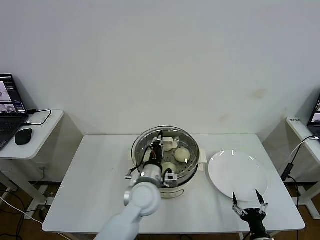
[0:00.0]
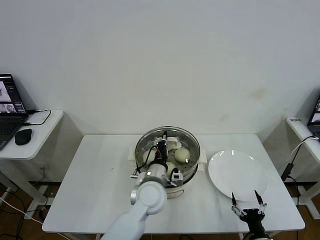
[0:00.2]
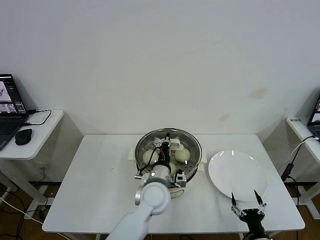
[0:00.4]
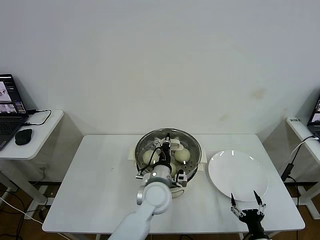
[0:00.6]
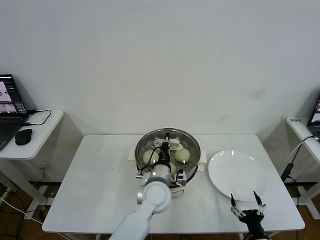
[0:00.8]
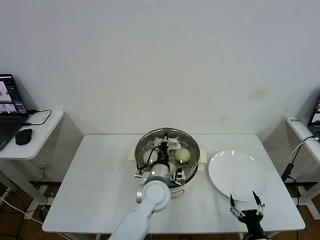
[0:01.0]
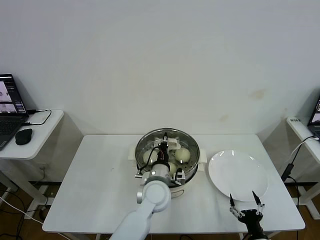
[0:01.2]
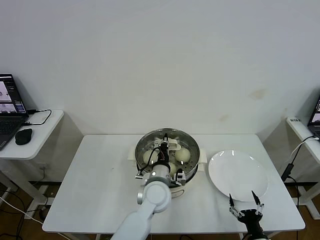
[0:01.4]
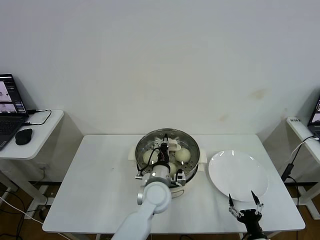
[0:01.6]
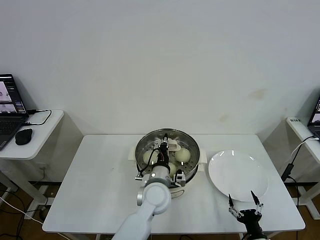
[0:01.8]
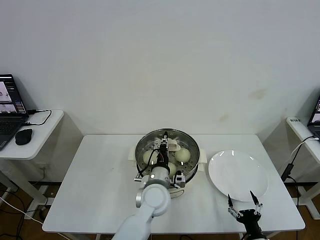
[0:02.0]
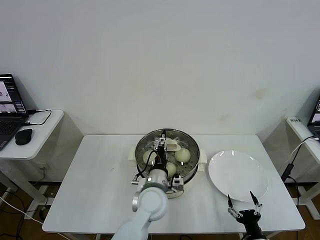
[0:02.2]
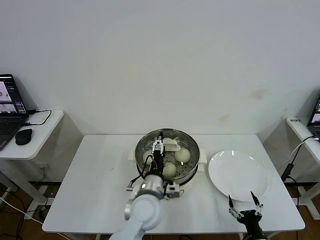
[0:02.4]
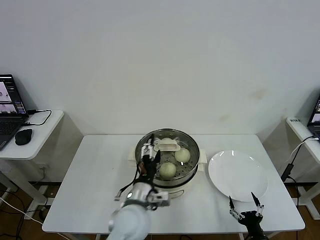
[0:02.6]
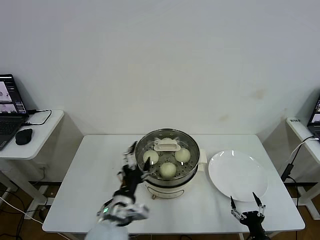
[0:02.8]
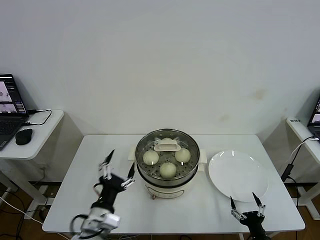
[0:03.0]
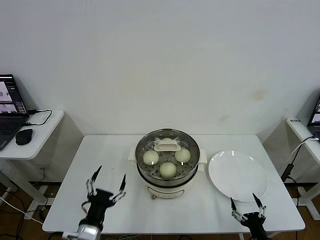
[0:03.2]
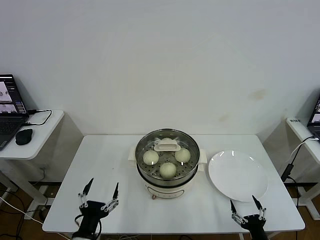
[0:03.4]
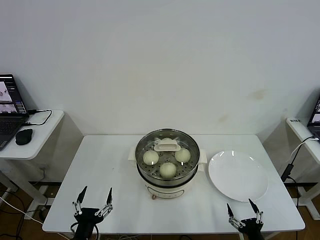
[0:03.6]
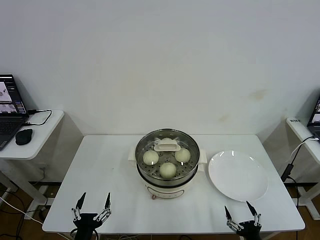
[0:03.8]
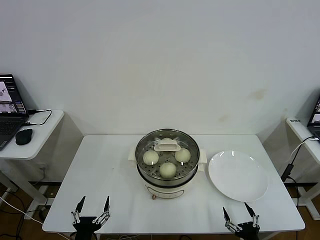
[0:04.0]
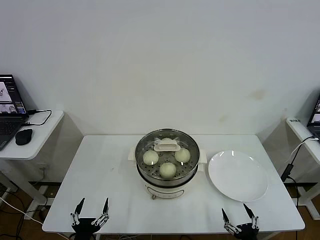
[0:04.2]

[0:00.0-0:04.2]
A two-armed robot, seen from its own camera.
Step, 0:00.0 to 0:02.2: Place the pot lid on the steamer with left gripper.
0:00.0 to 0:01.4: The left gripper changes place by approximately 5 cm.
0:01.4 to 0:02.8: The left gripper is displaced backward and to the left by some 15 cm, and opens up.
0:02.8 to 0:04.2: The left gripper heads to the left, backward and downward, covering approximately 20 cm. The right gripper shifts by about 5 cm.

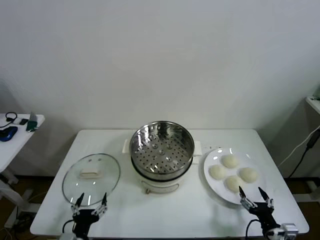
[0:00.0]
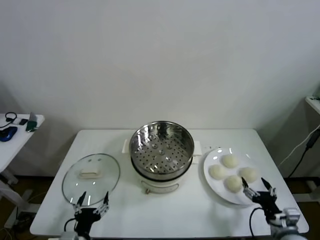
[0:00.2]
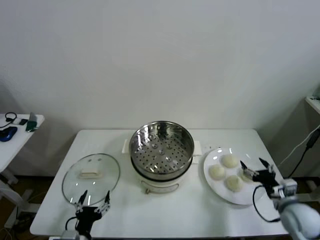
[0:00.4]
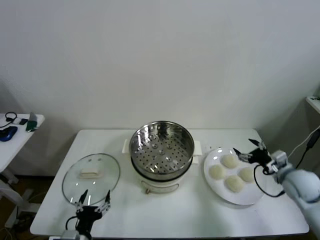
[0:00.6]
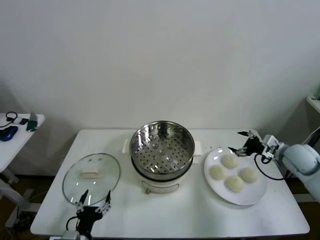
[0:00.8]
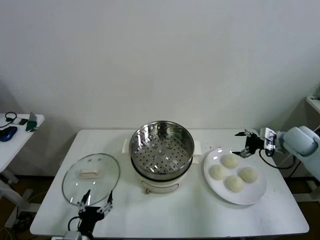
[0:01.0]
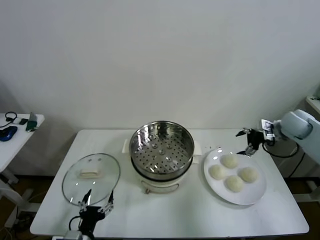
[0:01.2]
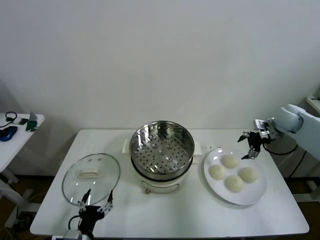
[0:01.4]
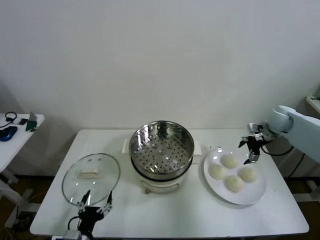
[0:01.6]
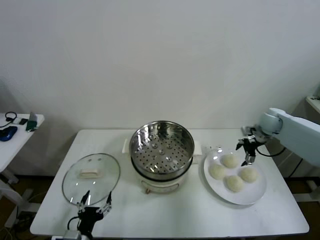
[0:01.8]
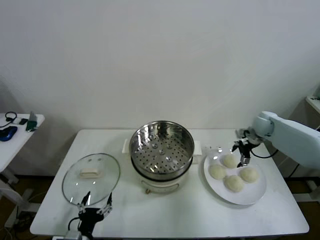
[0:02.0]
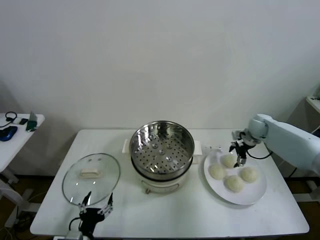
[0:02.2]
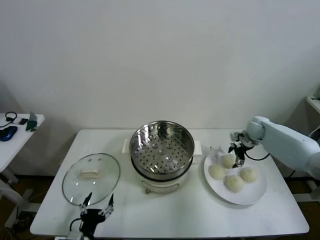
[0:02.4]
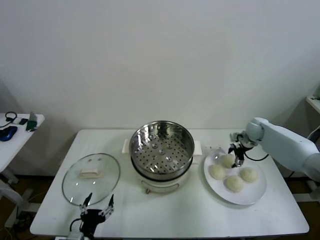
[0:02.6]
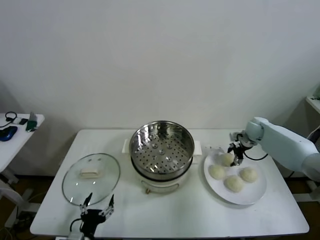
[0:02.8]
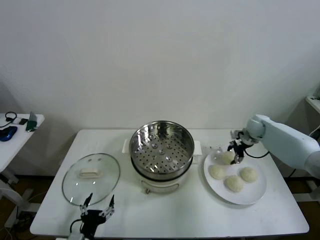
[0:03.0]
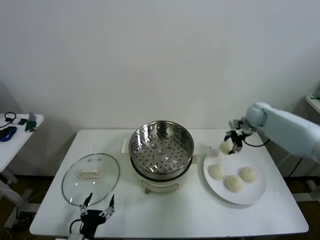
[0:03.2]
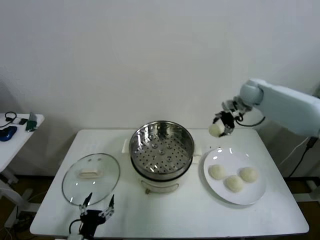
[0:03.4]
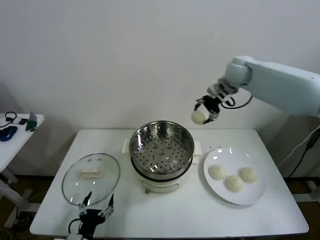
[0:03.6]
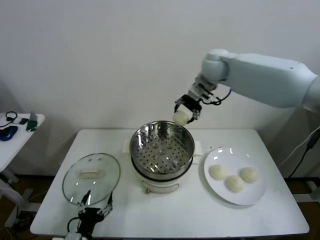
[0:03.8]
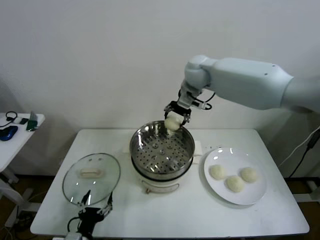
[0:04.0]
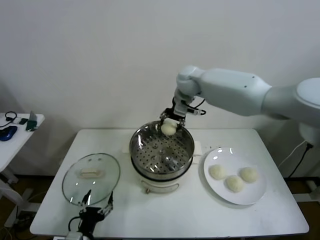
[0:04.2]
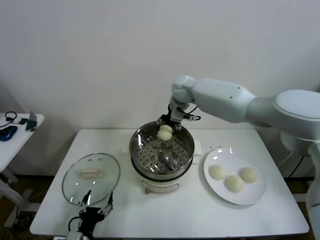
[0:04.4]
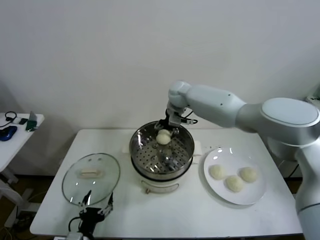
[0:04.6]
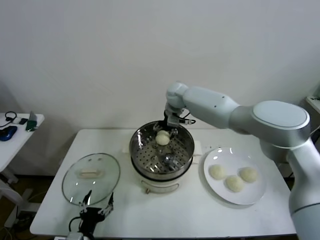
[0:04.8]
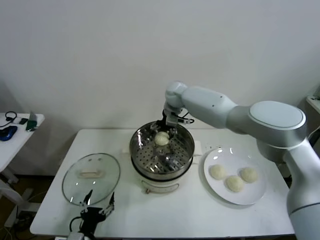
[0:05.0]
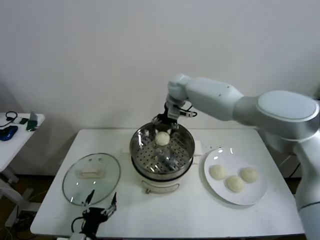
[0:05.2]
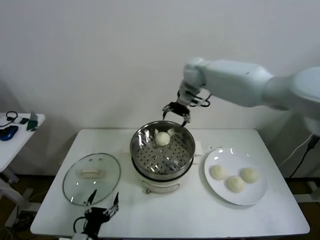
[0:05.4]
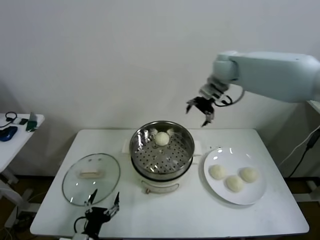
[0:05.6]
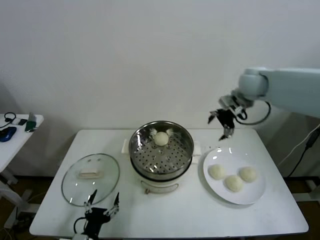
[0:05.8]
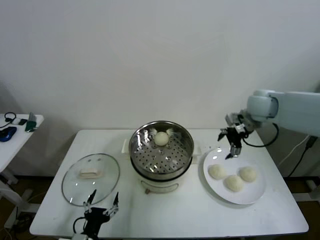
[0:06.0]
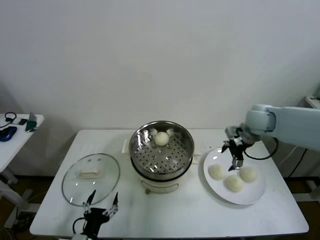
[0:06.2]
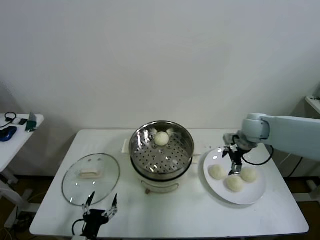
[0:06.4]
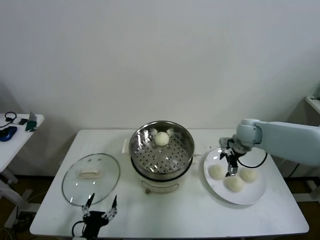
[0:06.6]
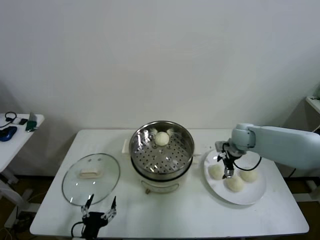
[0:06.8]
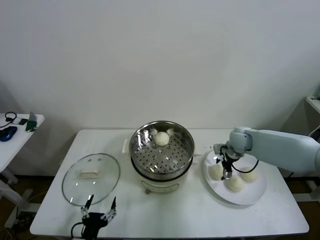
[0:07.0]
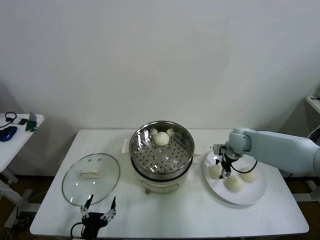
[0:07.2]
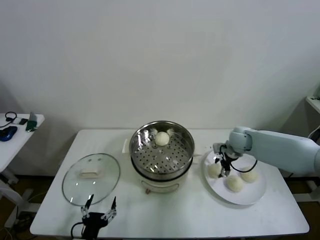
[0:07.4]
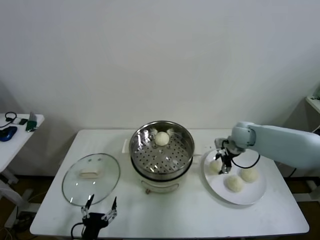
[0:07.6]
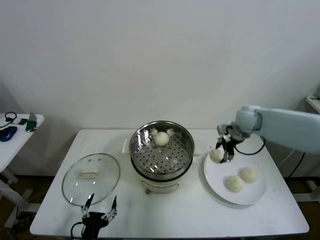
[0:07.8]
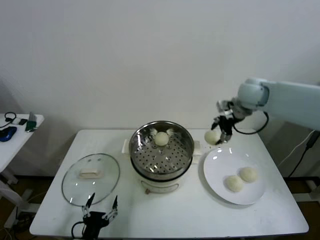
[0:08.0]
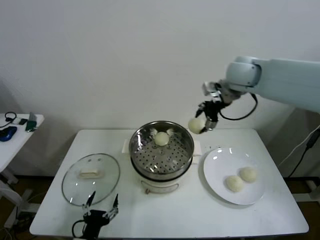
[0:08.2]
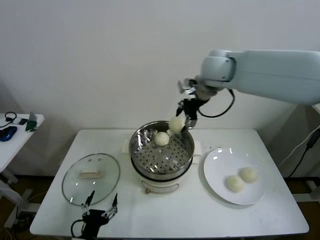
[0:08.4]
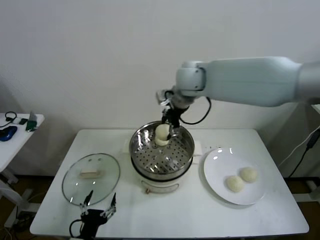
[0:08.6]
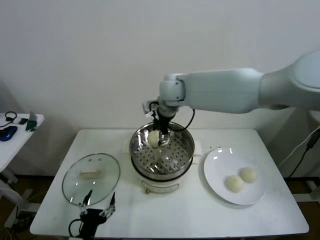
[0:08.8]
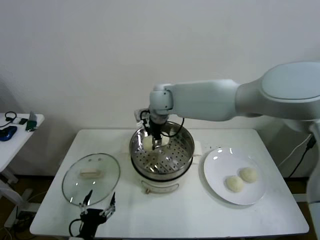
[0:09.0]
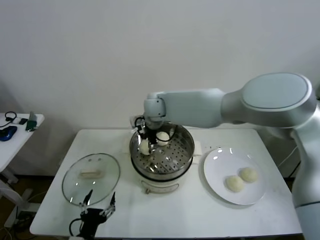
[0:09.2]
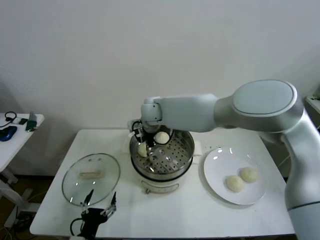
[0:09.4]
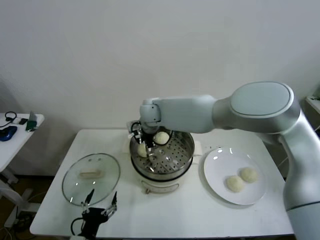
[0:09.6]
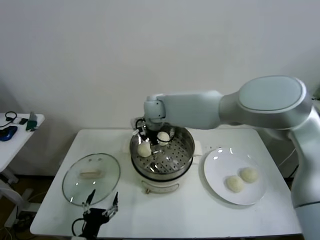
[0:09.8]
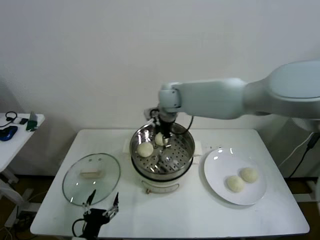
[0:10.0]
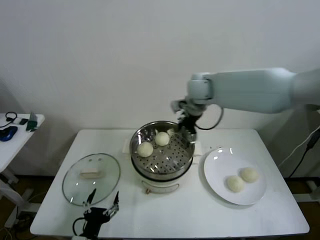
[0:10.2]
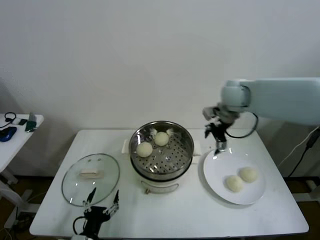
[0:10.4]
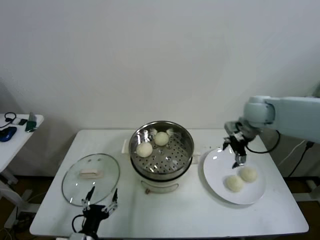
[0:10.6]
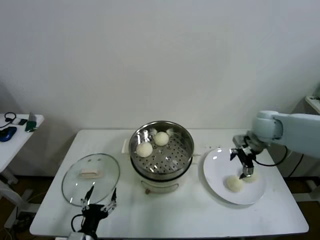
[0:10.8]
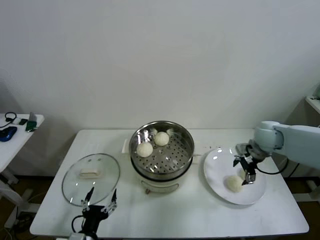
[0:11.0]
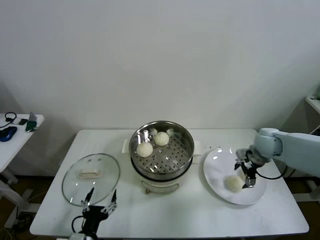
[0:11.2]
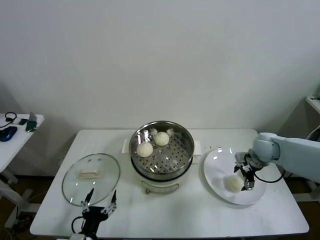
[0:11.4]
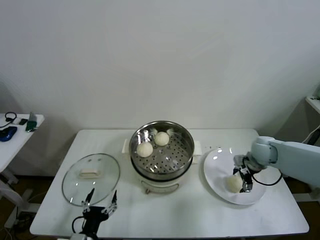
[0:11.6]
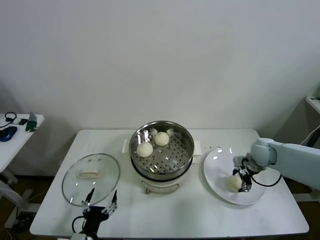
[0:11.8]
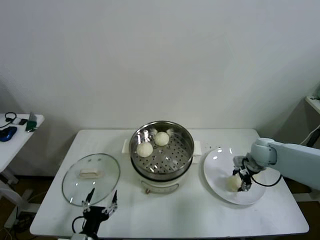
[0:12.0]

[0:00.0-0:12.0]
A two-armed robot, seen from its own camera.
Step, 0:00.0 to 0:02.6: Grasp the baozi in the plate with right gripper.
Step, 0:02.8 to 0:04.8: Place the baozi on the steamer with right gripper.
Step, 0:05.0 to 0:07.0: Grasp the baozi in the plate with right gripper.
Step, 0:07.4 to 0:09.6: Place the baozi on the steamer with right gripper.
Step, 0:09.8 to 0:12.0: Grasp the baozi in the plate with right gripper.
0:01.6 to 0:03.0: The right gripper moves approximately 5 cm, and closes.
0:03.0 to 0:04.4: The right gripper goes approximately 30 cm to the left.
0:04.4 to 0:06.0: The right gripper shifts approximately 25 cm to the right and backward, and opens its fingers.
0:06.0 to 0:07.6: The right gripper is displaced downward by some 10 cm, and closes up.
0:07.6 to 0:09.0: The right gripper is displaced to the left by roughly 30 cm.
0:09.0 to 0:10.4: The right gripper heads to the right, covering approximately 25 cm, and opens.
0:10.4 to 0:12.0: The right gripper moves downward and to the right, about 25 cm, and closes.

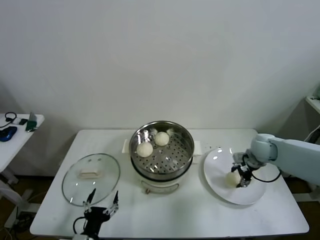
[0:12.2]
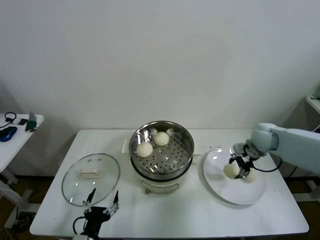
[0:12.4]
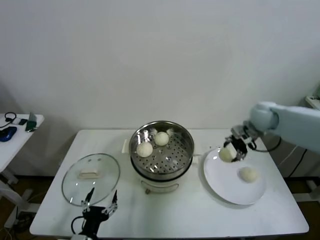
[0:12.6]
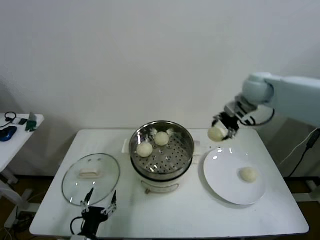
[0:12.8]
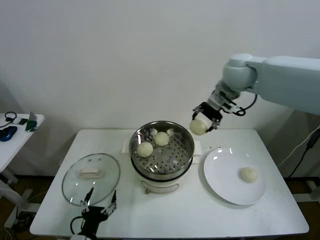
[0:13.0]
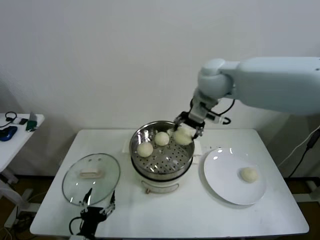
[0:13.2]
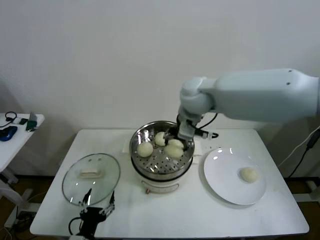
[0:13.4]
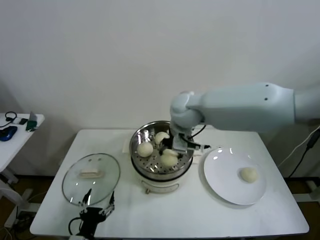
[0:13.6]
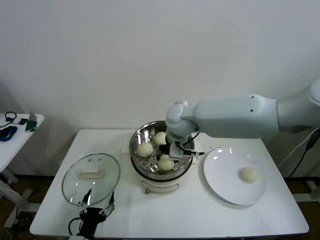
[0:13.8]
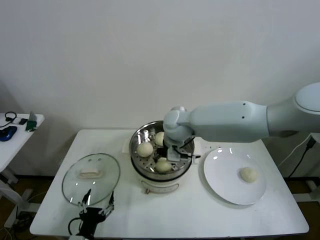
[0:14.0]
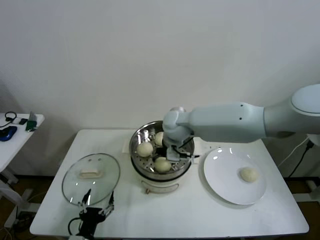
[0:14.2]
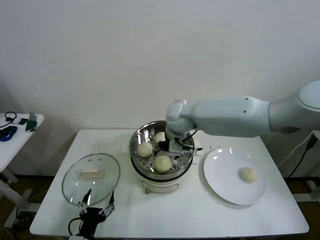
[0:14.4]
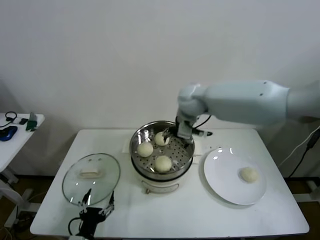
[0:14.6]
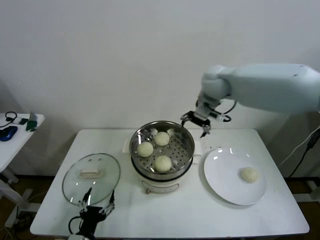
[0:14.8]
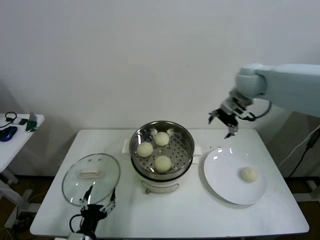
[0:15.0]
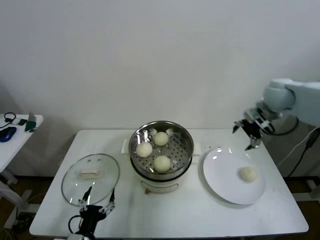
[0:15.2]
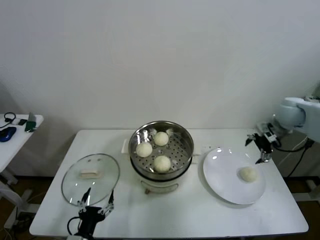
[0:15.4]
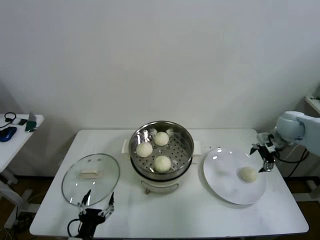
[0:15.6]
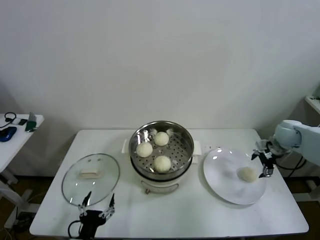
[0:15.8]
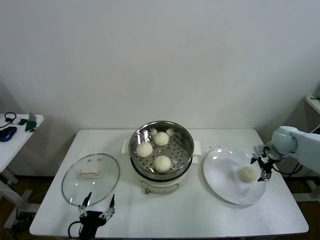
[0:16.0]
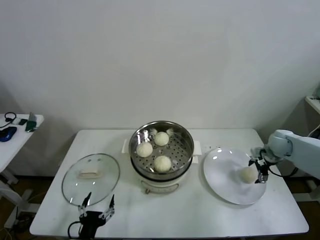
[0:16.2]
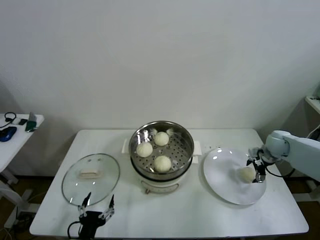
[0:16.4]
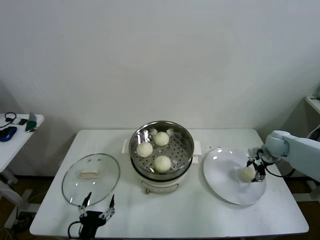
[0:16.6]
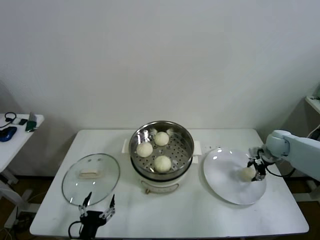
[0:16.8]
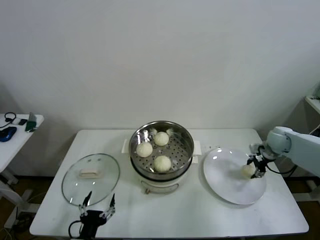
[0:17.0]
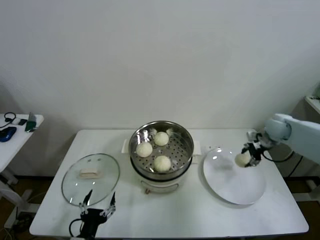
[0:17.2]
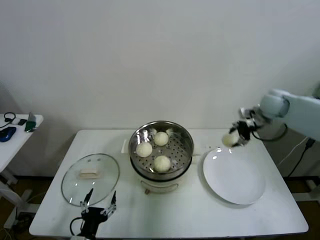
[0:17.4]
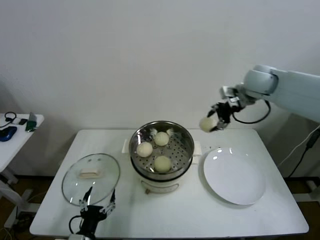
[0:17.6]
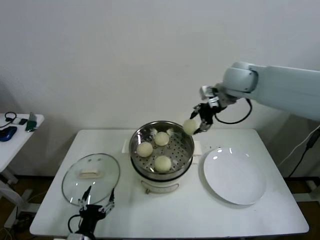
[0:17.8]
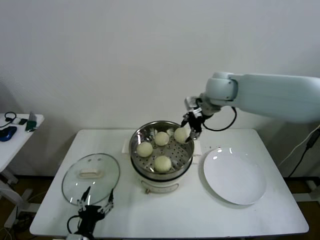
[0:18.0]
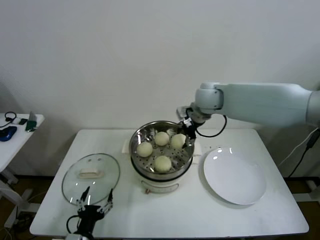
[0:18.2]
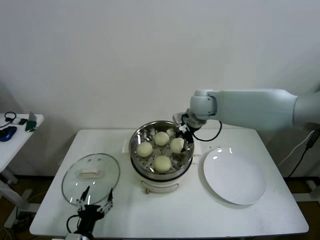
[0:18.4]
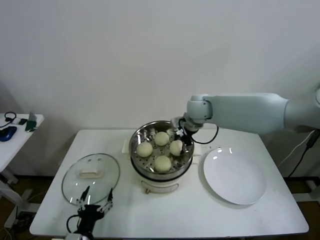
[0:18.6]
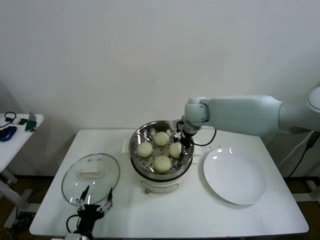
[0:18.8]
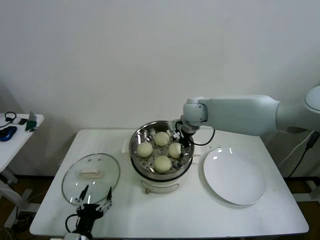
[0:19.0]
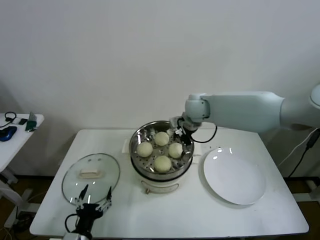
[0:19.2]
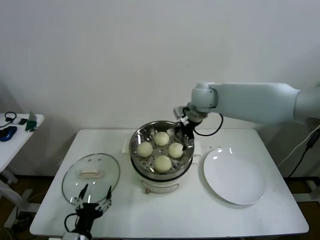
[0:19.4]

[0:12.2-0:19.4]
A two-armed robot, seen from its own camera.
Step, 0:12.2 to 0:14.2: Place the baozi on the steamer with right gripper.
Step, 0:14.4 to 0:16.8: Grasp the baozi in the plate with right gripper.
Step, 0:17.0 to 0:18.8: Place the baozi on the steamer with right gripper.
0:12.2 to 0:13.6: The right gripper is displaced to the left and upward by approximately 35 cm.
0:13.6 to 0:15.0: The right gripper travels to the right by roughly 20 cm, and opens.
0:15.0 to 0:16.6: The right gripper is displaced downward and to the right by about 30 cm.
0:16.6 to 0:18.0: The right gripper is displaced to the left and upward by some 35 cm, and closes up.
0:18.0 to 0:19.4: The right gripper opens its fingers.
